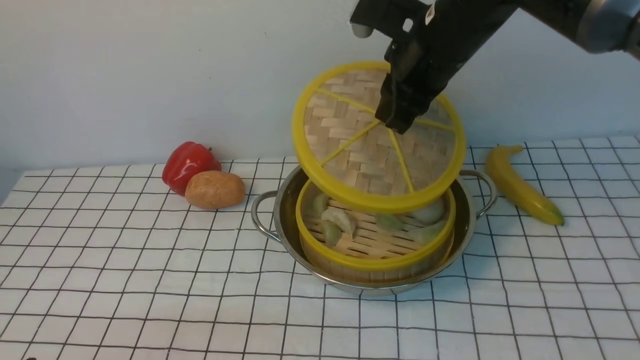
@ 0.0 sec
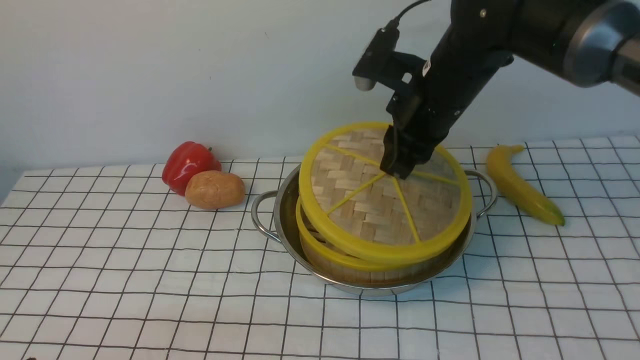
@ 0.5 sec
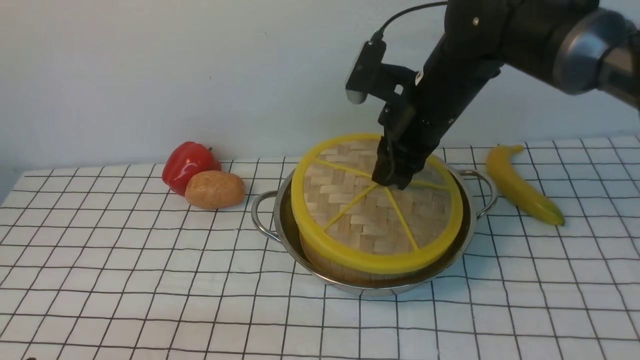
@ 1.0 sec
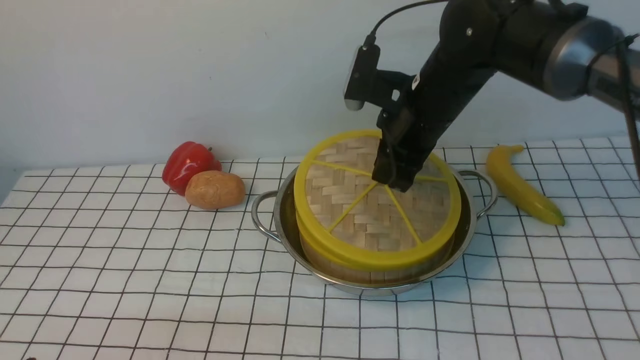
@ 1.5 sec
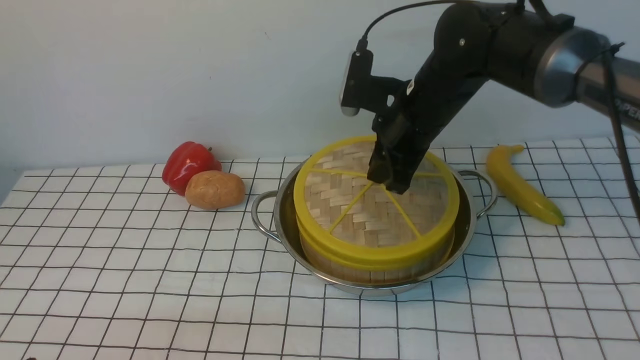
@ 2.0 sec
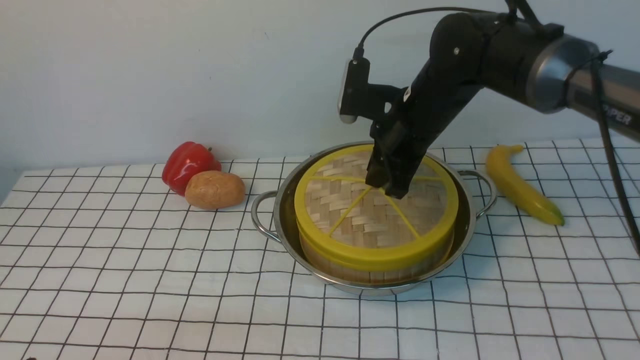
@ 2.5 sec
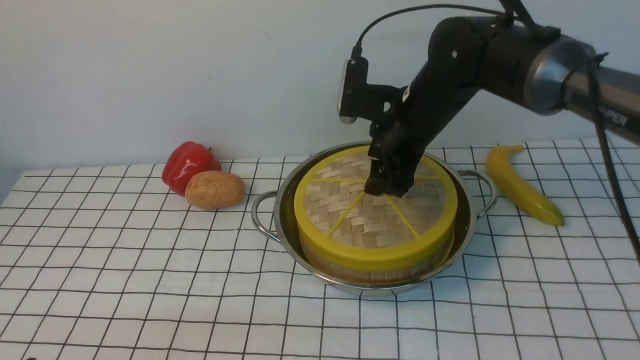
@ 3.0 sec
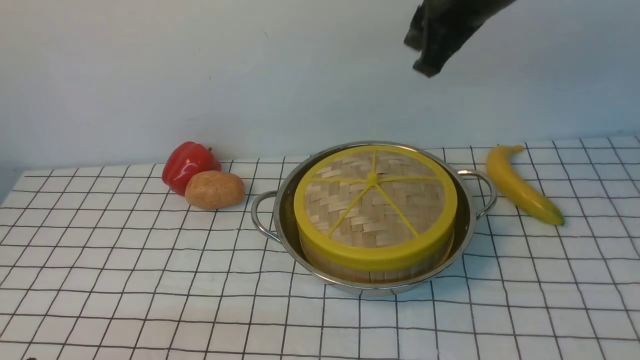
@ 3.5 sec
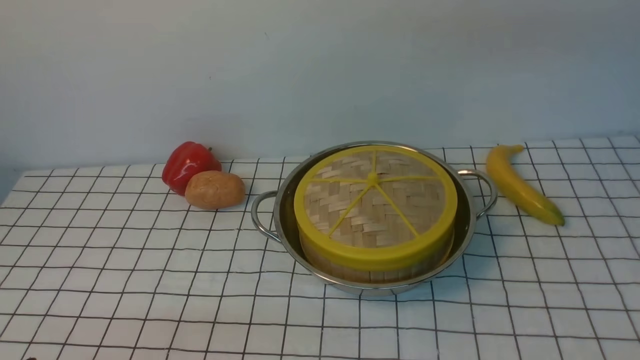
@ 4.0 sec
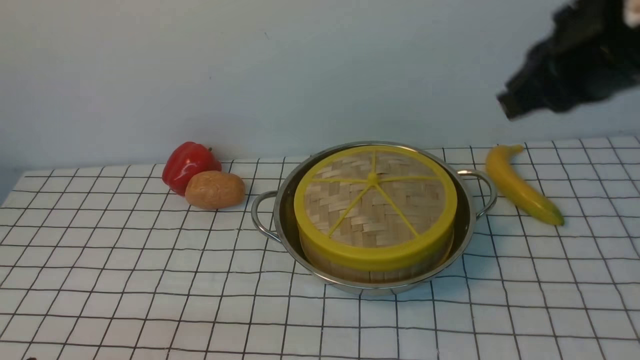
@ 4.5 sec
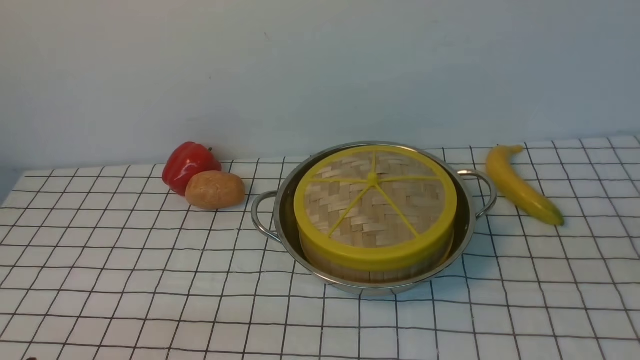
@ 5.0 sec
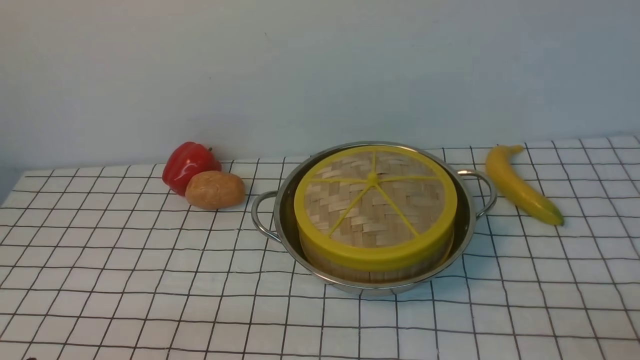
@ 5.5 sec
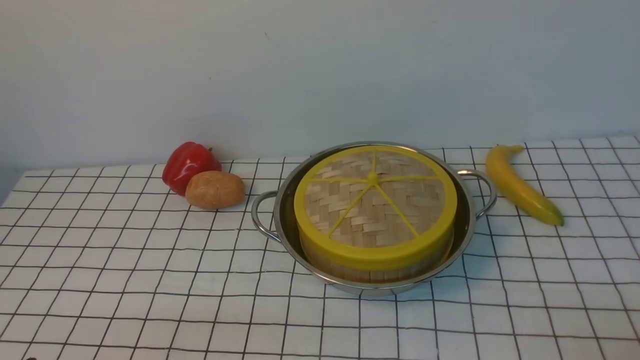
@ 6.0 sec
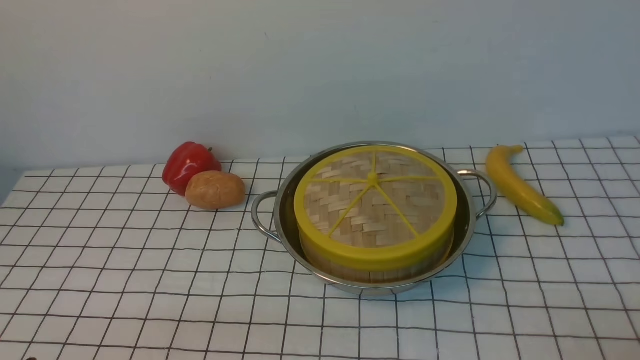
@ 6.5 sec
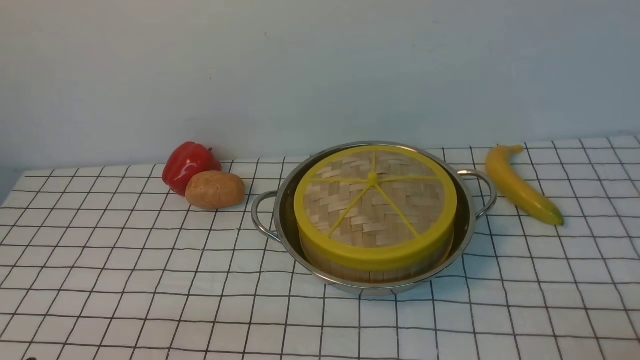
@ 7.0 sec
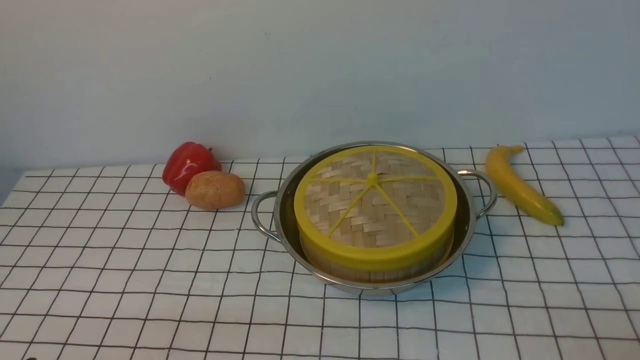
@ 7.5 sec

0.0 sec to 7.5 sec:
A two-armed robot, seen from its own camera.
Task of the whole recording: place the steamer in the pot on the white tablecloth, and put the lid on the steamer.
Step, 0.0 sec to 3.0 sec: use the right arm to place the steamer lid on the steamer.
0.0 sec to 2.0 sec: The right gripper moves downward, some 5 cm.
2.0 sec to 4.0 sec: The right gripper heads upward, covering some 20 cm, and closes its fingers.
